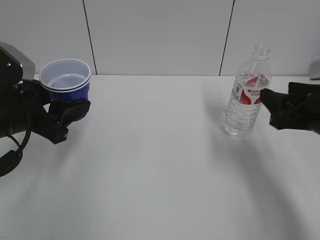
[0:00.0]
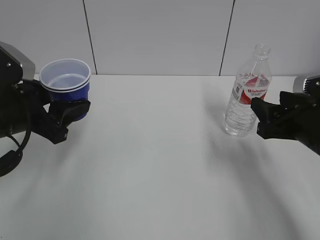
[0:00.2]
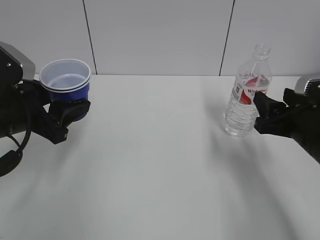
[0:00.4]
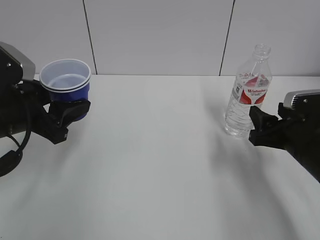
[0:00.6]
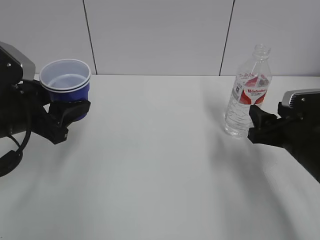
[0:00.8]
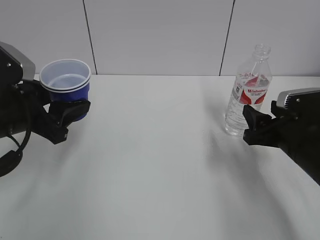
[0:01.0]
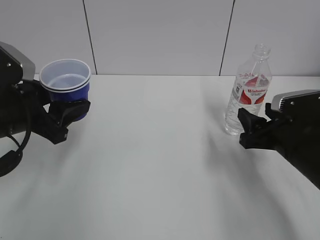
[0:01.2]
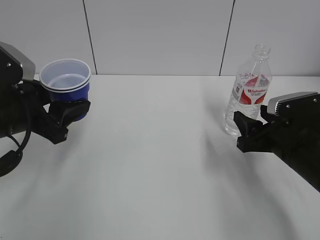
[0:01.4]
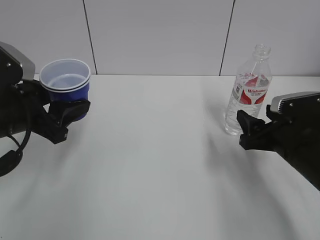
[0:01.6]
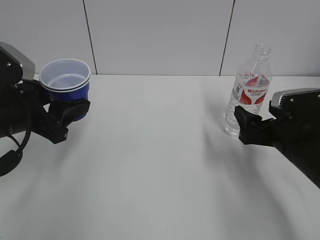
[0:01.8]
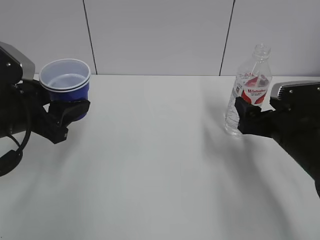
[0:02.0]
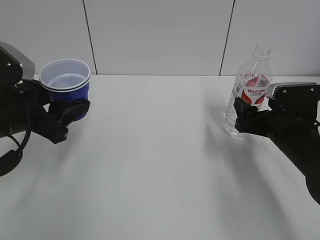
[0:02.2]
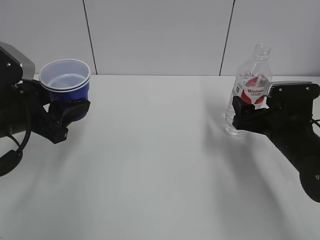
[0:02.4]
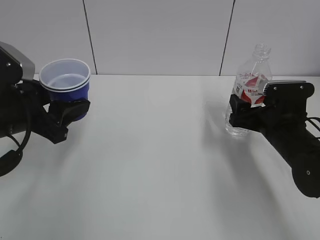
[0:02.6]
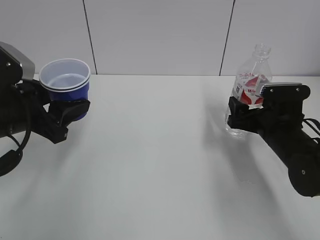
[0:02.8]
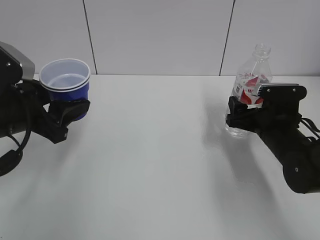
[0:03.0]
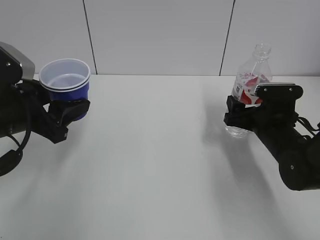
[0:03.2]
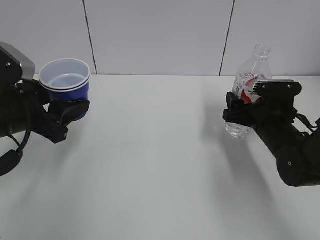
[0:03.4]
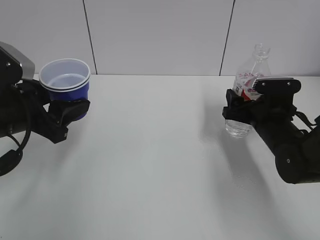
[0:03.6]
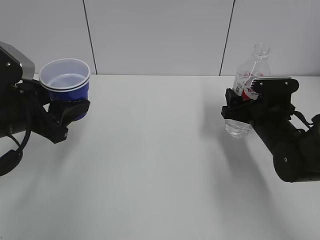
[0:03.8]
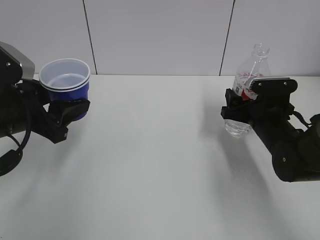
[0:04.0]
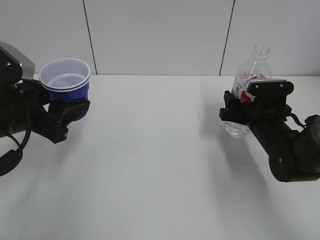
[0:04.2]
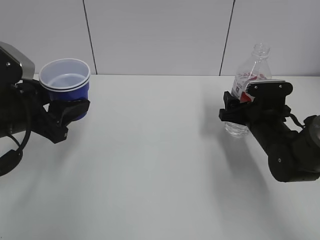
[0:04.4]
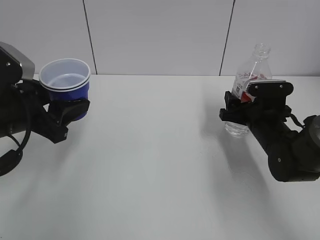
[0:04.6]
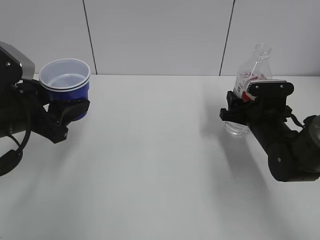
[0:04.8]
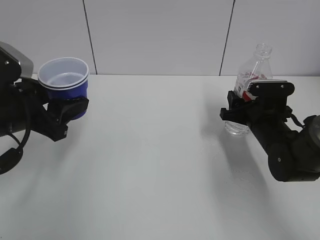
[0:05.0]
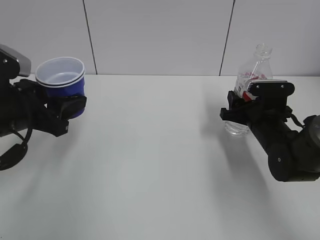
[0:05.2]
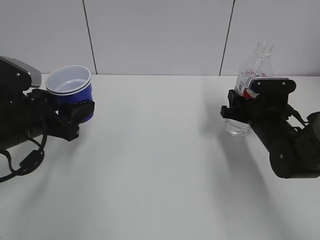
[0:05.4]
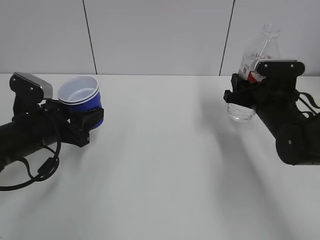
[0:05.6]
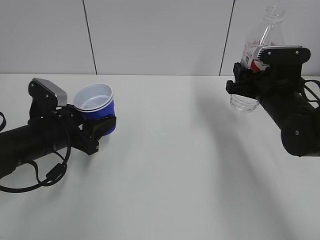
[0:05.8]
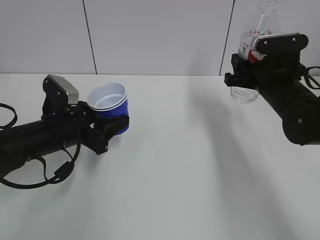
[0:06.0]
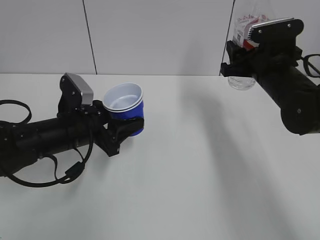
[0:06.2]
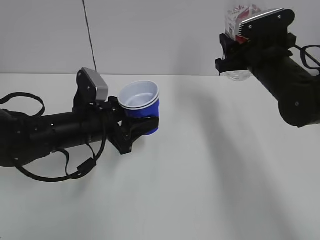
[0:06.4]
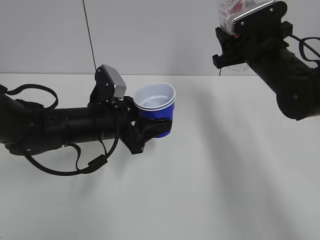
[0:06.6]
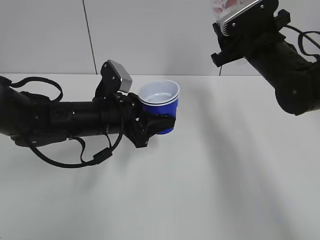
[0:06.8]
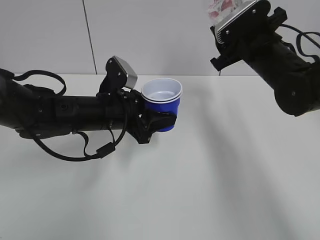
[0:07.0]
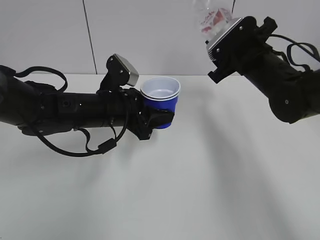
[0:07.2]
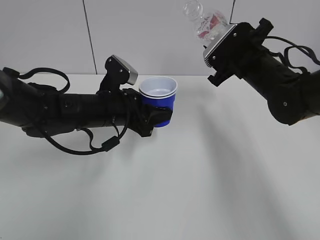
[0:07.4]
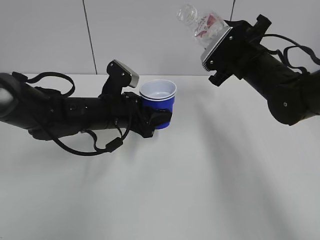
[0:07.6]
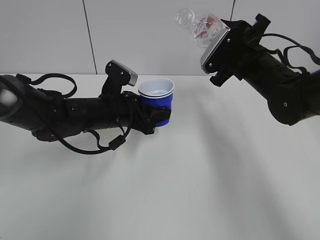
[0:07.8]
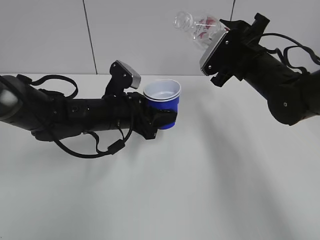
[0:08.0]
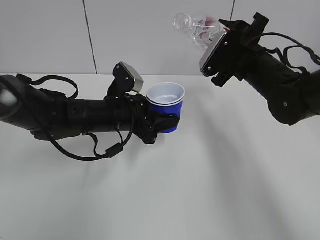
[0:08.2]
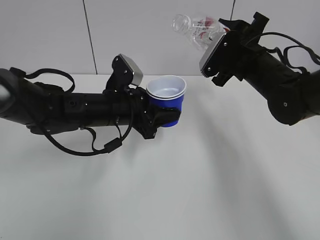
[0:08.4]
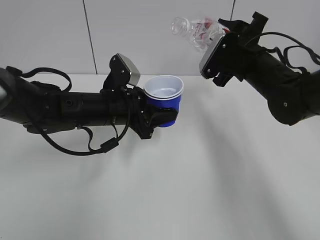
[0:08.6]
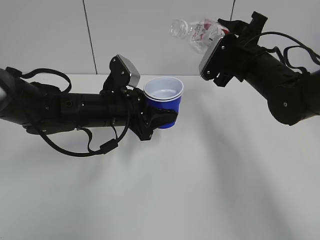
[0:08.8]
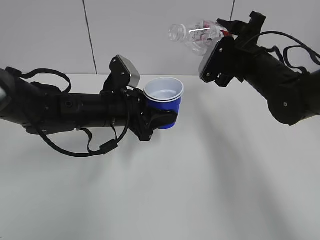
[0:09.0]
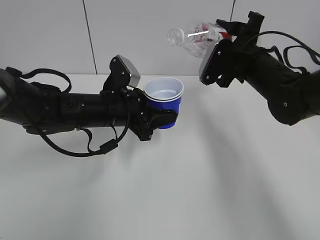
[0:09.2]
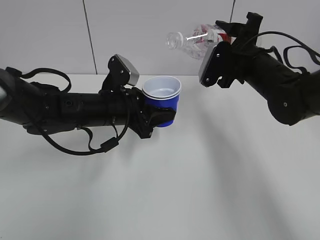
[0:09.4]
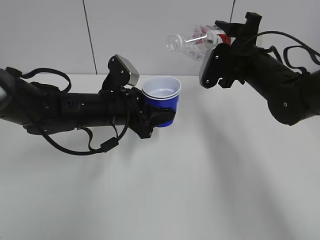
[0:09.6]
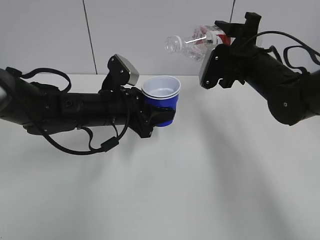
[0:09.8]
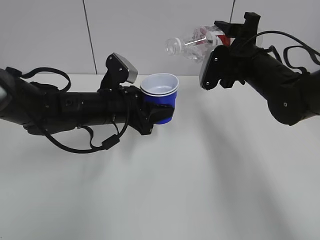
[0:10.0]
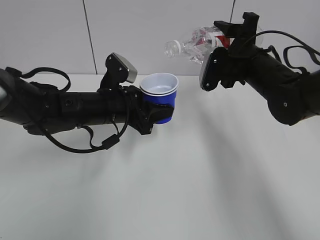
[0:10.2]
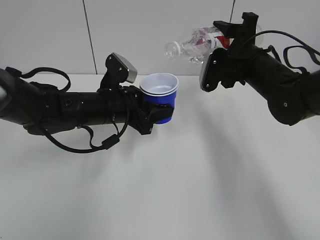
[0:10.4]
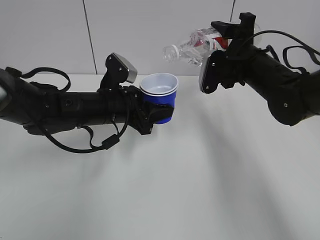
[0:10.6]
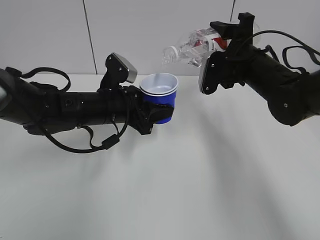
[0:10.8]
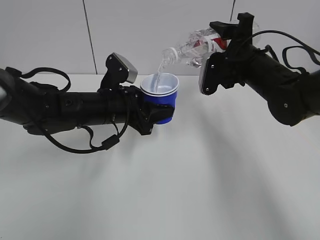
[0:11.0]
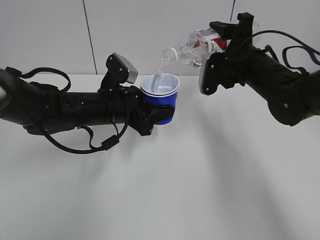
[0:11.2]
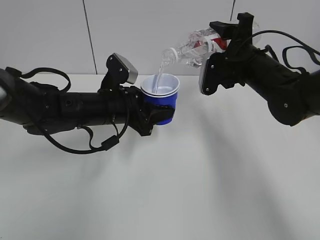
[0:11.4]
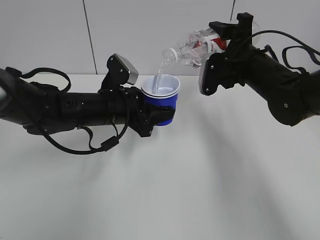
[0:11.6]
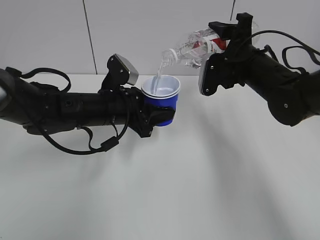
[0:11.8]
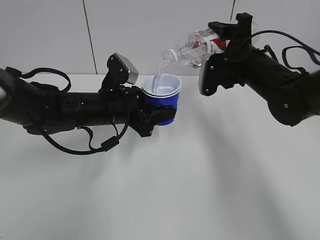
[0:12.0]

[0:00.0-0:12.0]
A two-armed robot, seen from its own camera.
Step, 0:00.0 to 0:04.0: Grab the water bottle with the right hand.
Step, 0:04.2 to 0:06.4: Lift the paper cup with the left hand.
0:00.0 to 0:01.6: The right gripper travels downward by roughly 5 cm.
0:01.6 to 0:03.0: The right gripper shifts some 5 cm forward, and opens.
0:03.0 to 0:04.4: The grippers move only a little.
0:04.4 to 0:06.0: The right gripper is displaced upward by about 10 cm, and closes. Meanwhile the left gripper is displaced downward by approximately 10 cm.
0:06.0 to 0:07.6: The left gripper is displaced to the right by some 10 cm.
0:07.6 to 0:09.0: The grippers make only small movements.
0:09.0 to 0:12.0: The grippers move only a little.

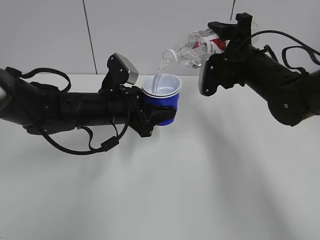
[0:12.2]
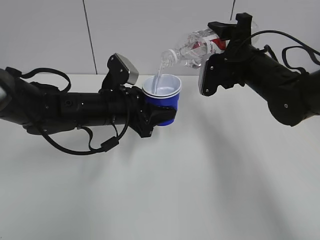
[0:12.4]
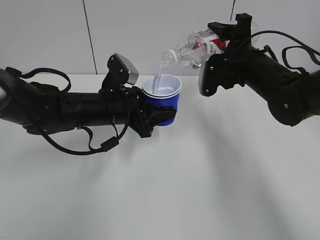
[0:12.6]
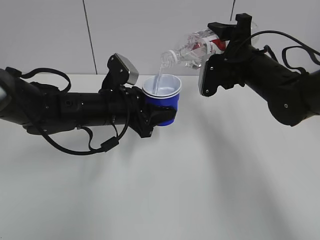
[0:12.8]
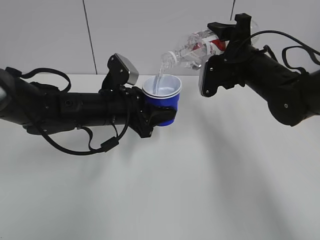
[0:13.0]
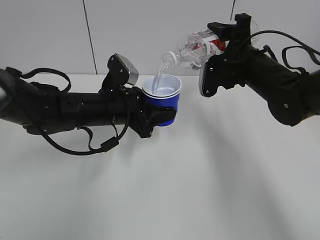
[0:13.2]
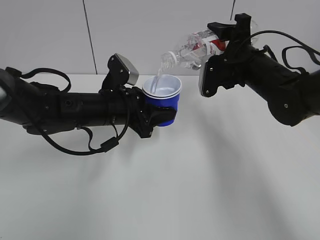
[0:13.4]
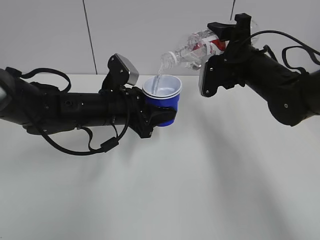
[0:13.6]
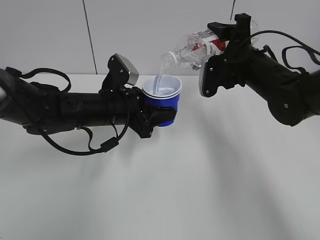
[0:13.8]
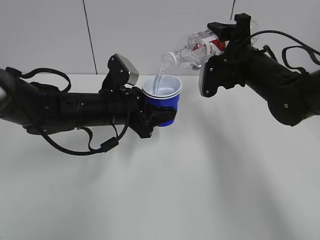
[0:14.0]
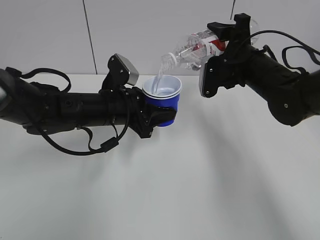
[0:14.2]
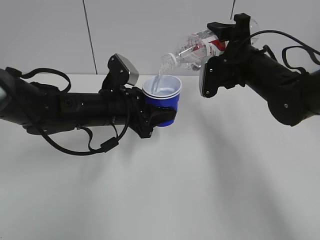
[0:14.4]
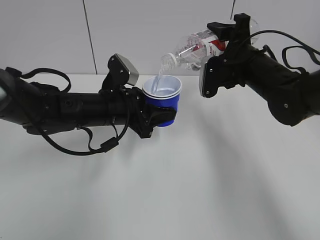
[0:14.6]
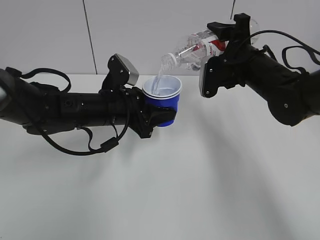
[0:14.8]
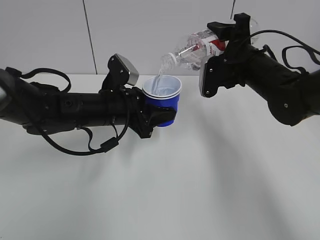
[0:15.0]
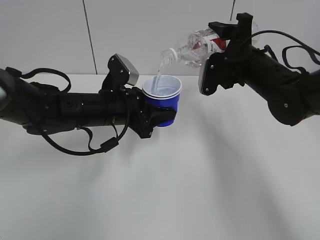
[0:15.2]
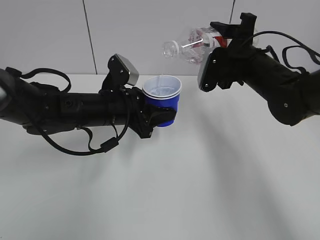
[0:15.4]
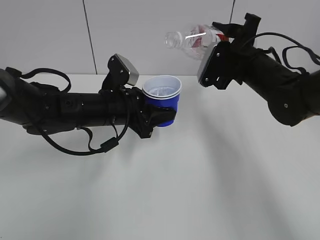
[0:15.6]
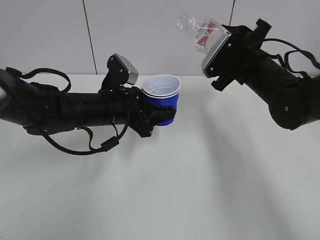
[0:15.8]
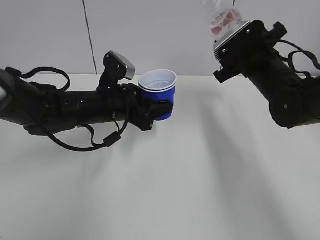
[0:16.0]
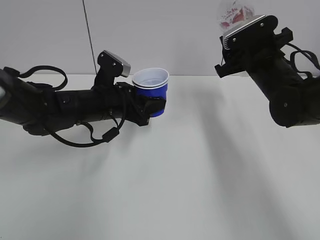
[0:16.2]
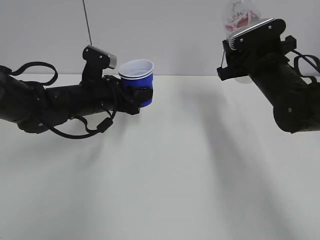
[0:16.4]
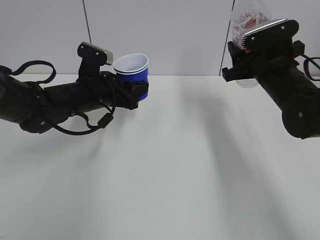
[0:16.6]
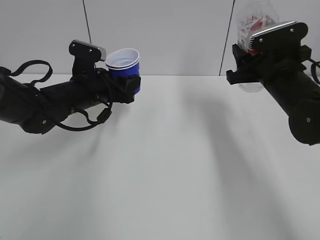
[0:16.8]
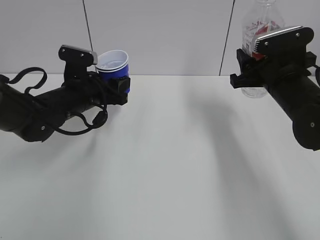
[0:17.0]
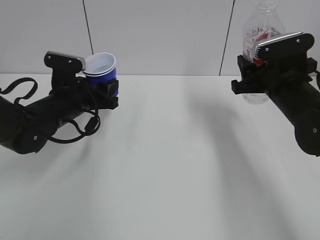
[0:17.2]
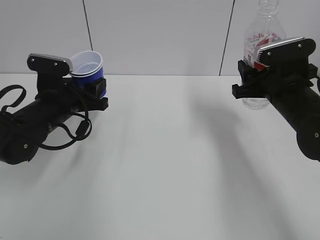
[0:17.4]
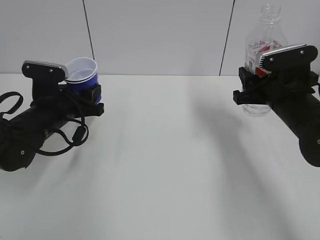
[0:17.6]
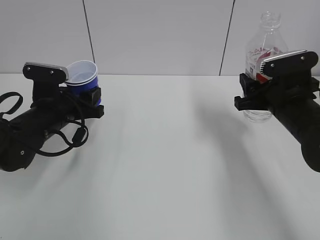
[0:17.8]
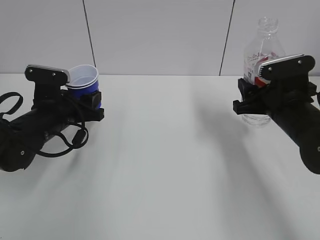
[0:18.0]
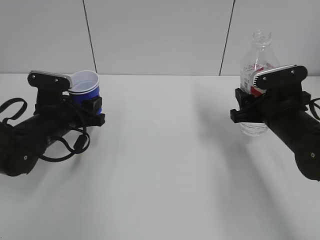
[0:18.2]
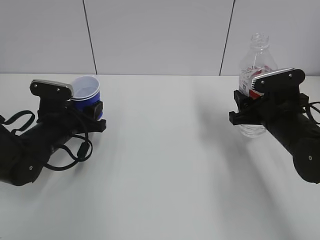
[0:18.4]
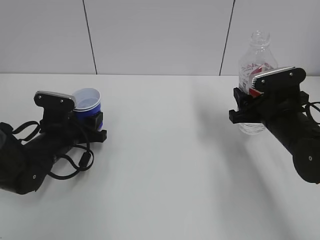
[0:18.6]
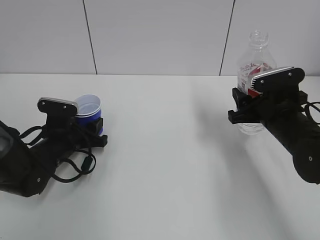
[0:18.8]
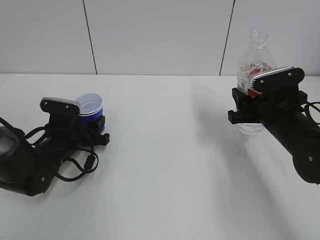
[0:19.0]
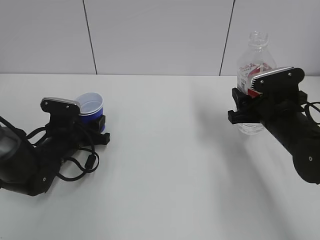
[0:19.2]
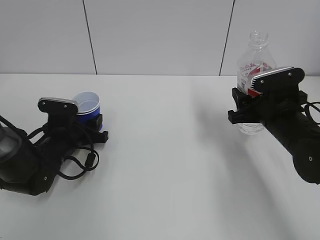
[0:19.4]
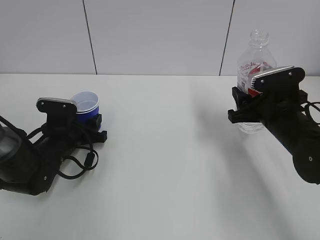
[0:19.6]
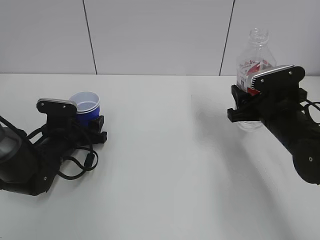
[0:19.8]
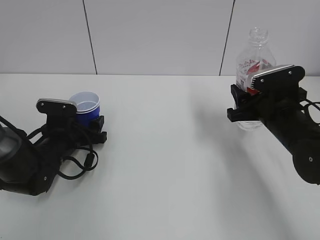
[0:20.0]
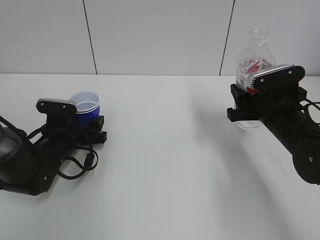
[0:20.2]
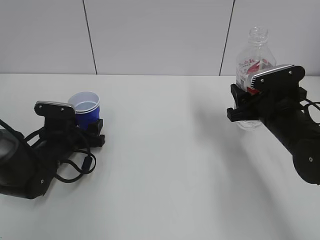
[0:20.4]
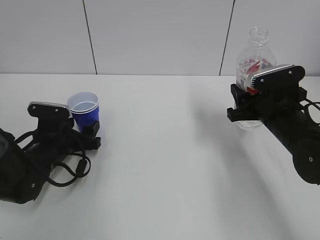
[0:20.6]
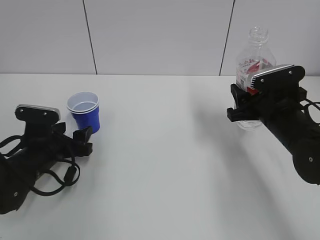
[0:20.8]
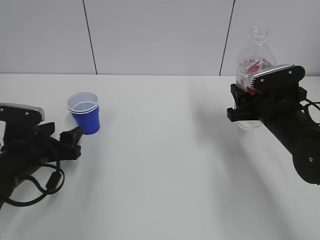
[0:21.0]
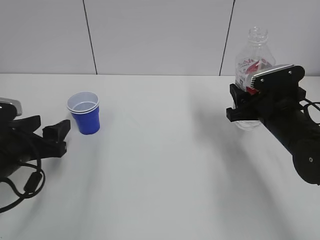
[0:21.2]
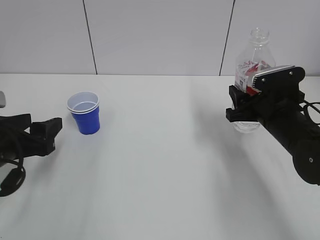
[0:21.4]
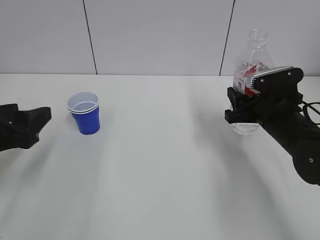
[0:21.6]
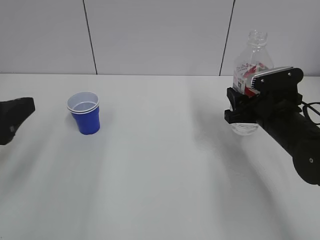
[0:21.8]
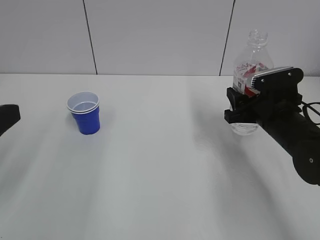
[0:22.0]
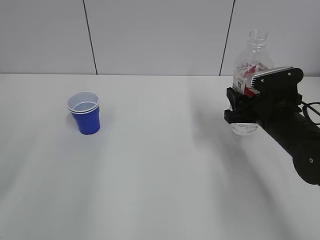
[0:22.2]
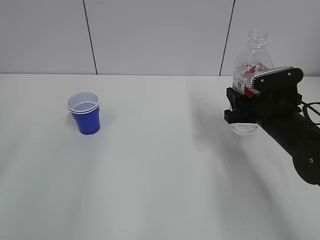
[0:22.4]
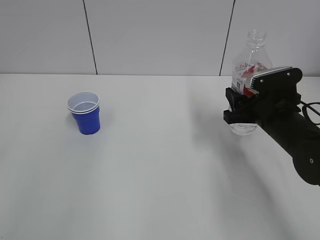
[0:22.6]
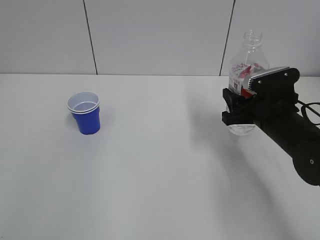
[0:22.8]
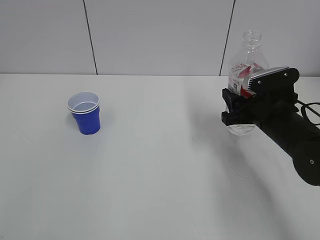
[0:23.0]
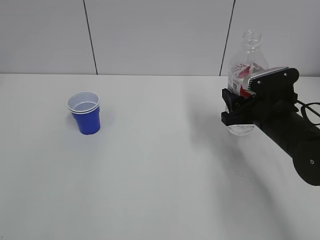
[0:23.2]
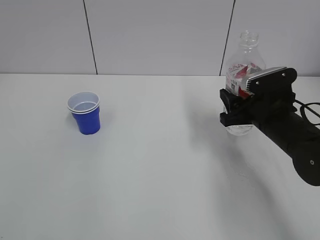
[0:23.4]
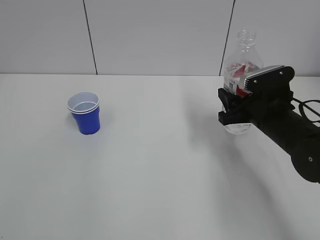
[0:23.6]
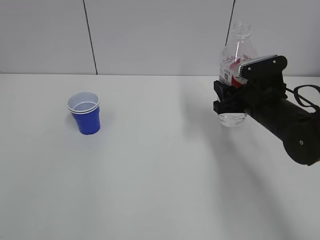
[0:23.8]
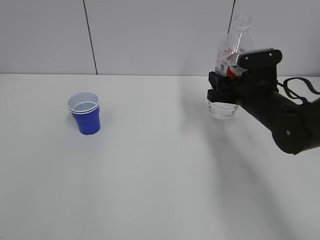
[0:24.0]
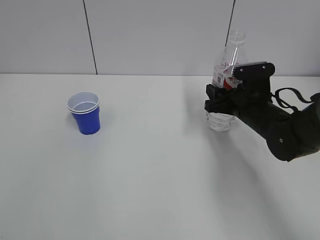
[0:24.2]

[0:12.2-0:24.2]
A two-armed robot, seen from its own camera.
Step, 0:12.2 to 0:15.6: Fill water with the left hand.
Step, 0:12.2 to 0:15.6: Pour water with the right hand.
Step, 0:15.8 to 0:16.6: Collect water with the right hand.
Step, 0:16.8 to 0:18.6: Place the paper cup with the left hand.
0:12.2 to 0:15.2: Both grippers stay put.
0:15.2 to 0:16.6: The left gripper changes place by some 5 cm.
0:16.6 to 0:18.2: The right gripper moves downward, some 5 cm. Meanwhile the left gripper heads to the left, covering approximately 5 cm.
0:18.2 to 0:19.8: The left gripper is displaced downward by about 5 cm, and opens.
0:19.8 to 0:21.2: The left gripper shifts about 15 cm backward and upward.
0:21.2 to 0:22.6: The left gripper moves upward and backward, roughly 25 cm.
0:22.6 to 0:24.2: The right gripper shifts by about 5 cm.
